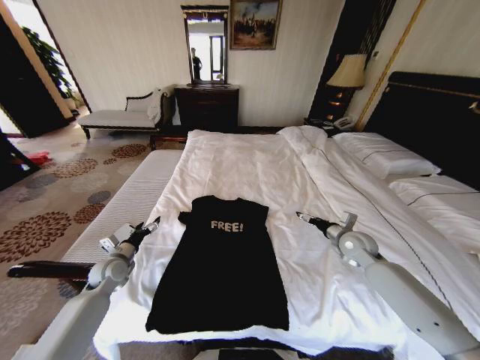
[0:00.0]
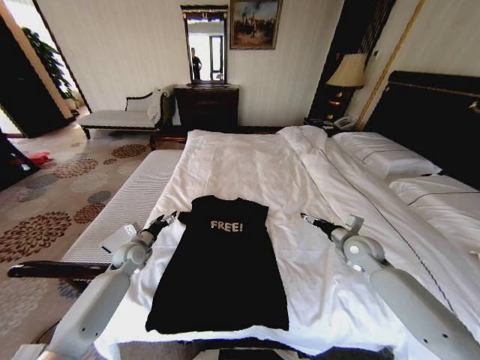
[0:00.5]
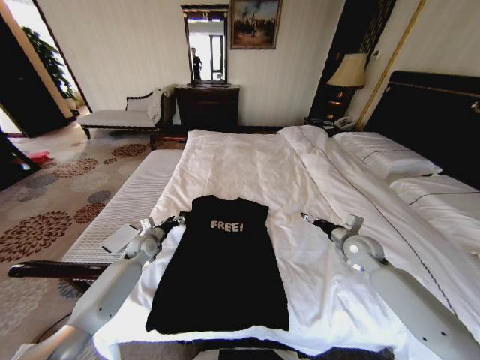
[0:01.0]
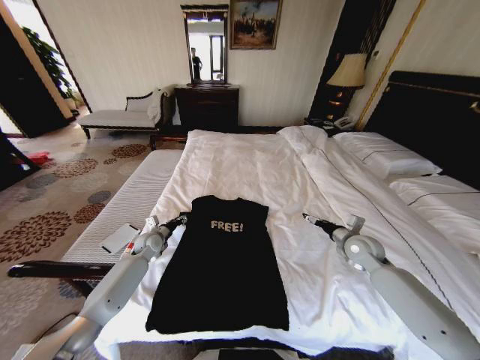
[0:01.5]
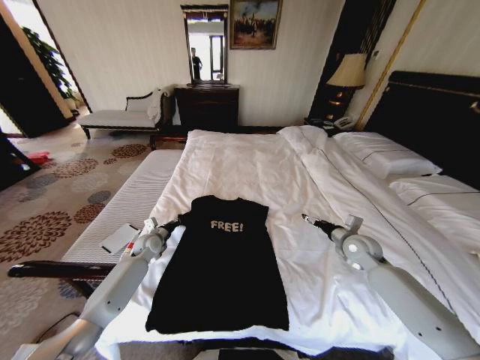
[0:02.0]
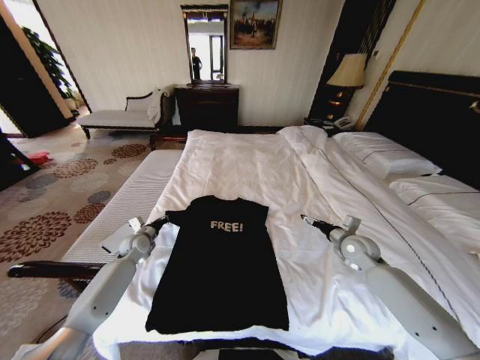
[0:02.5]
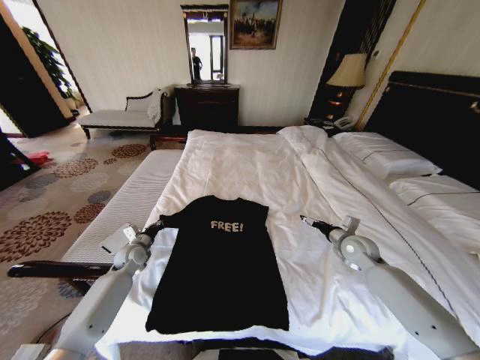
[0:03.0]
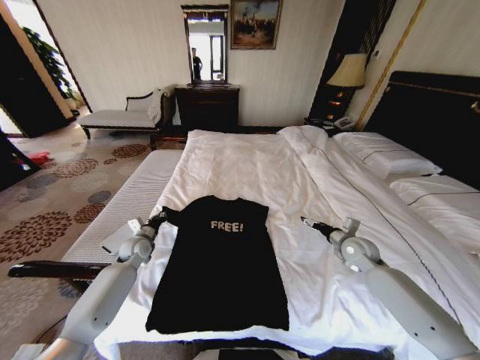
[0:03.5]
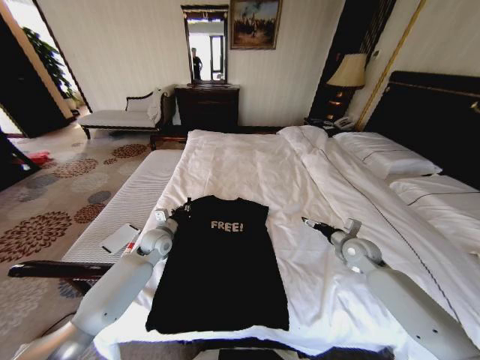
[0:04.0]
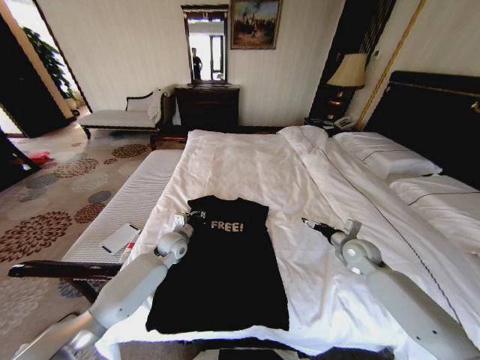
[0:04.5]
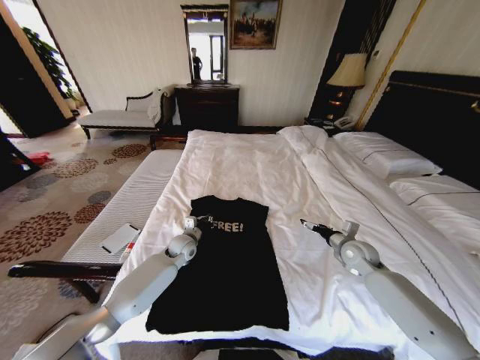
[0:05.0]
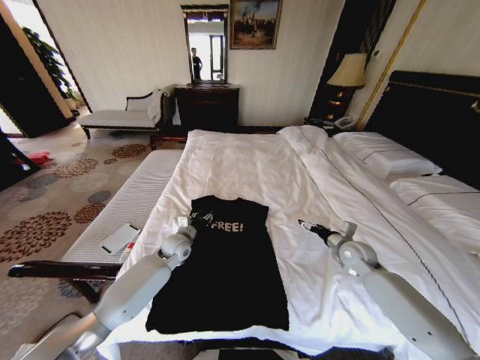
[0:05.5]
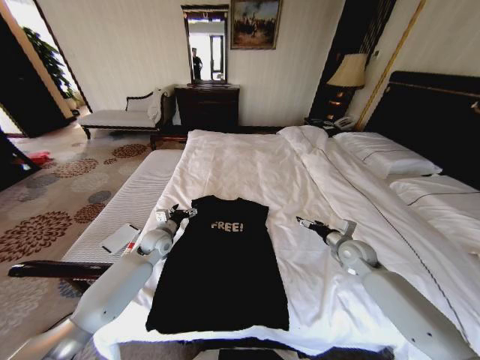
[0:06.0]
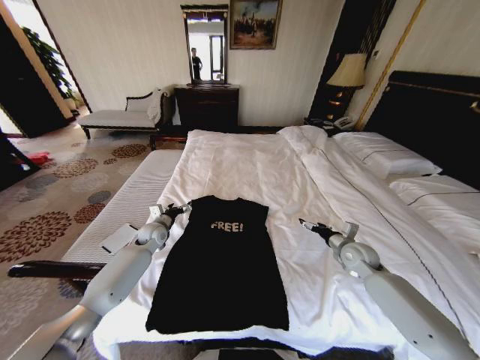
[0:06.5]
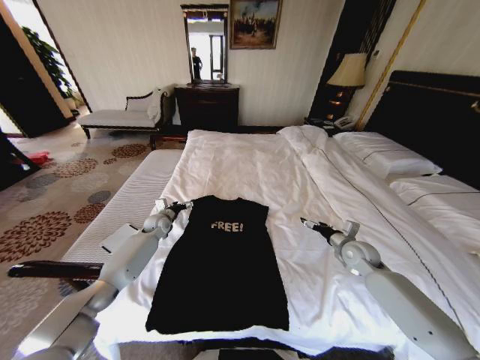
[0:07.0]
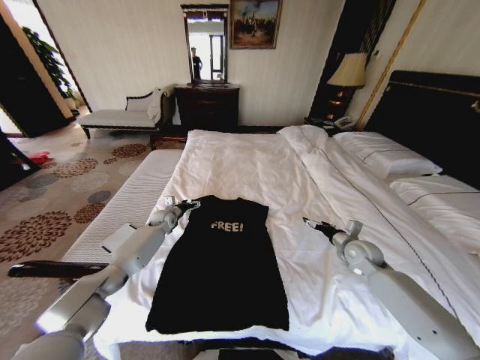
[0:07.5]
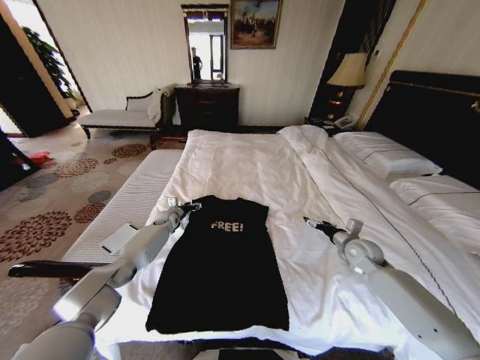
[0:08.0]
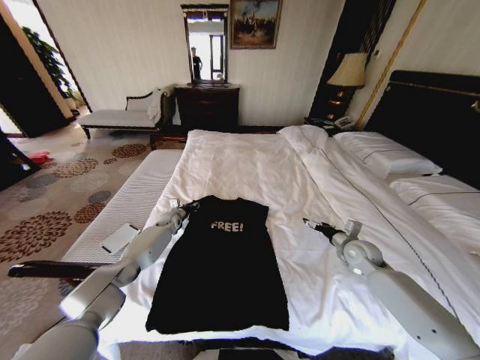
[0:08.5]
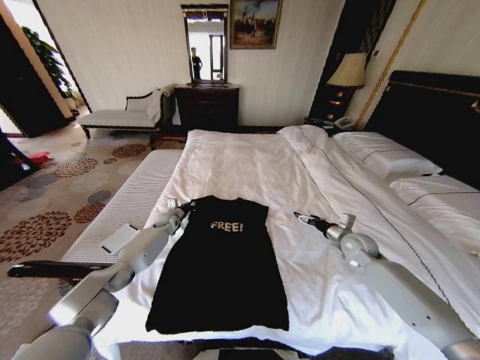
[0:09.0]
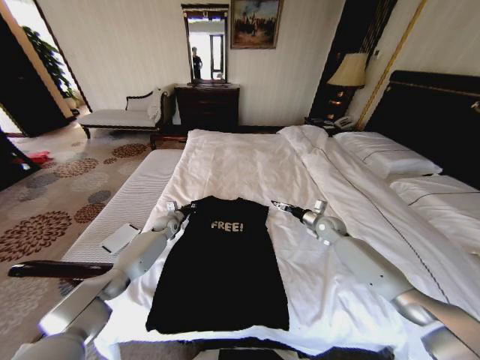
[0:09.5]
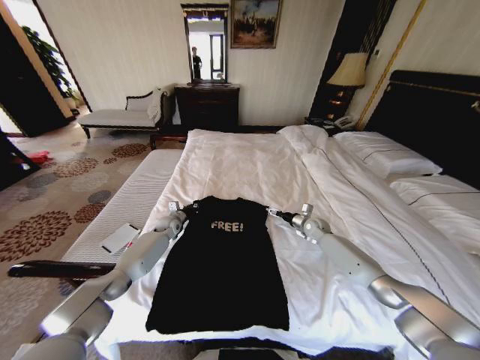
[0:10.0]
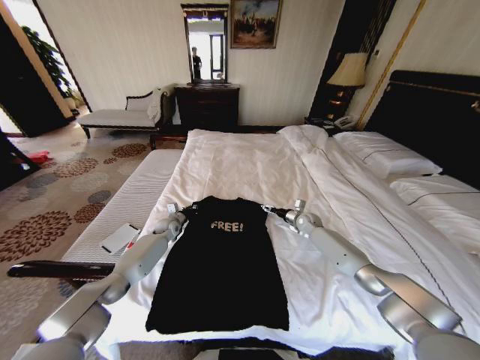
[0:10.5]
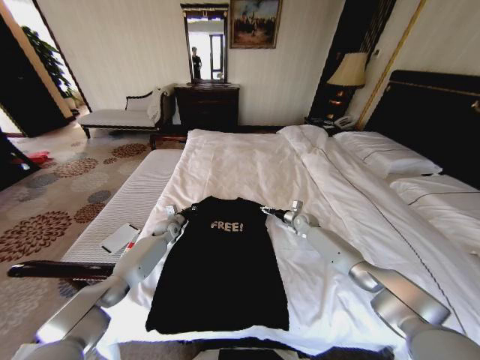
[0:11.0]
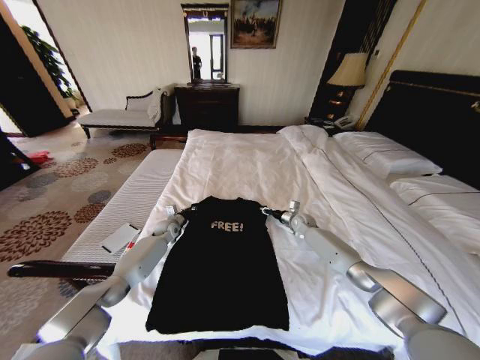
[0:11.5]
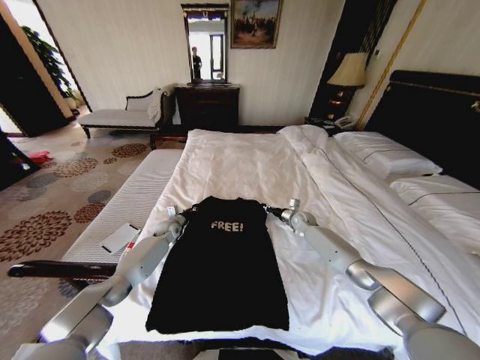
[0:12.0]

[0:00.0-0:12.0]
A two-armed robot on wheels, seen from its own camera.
Task of the whole recording: Fold the clothes on the bed.
0:00.0 to 0:02.0: The left gripper travels forward and to the right by approximately 15 cm, and closes its fingers.
0:02.0 to 0:04.0: The left gripper is displaced upward and to the right by about 10 cm.
0:04.0 to 0:06.0: The left gripper reaches some 10 cm to the right, then returns, and opens up.
0:06.0 to 0:08.0: The left gripper is displaced forward and downward by roughly 15 cm.
0:08.0 to 0:10.0: The left gripper closes up, while the right gripper is displaced forward and to the left by approximately 15 cm.
0:10.0 to 0:12.0: The right gripper ends up roughly 5 cm from where it was, and closes its fingers.

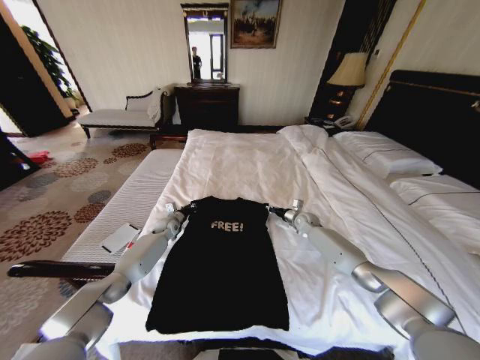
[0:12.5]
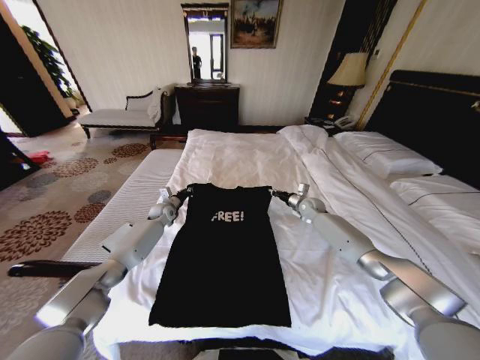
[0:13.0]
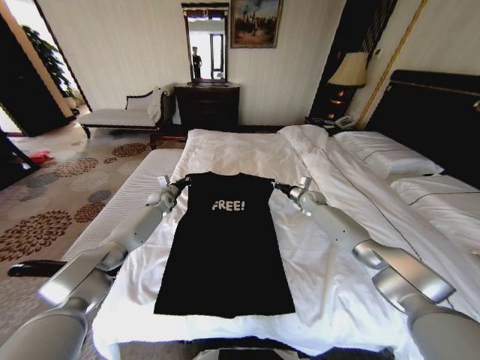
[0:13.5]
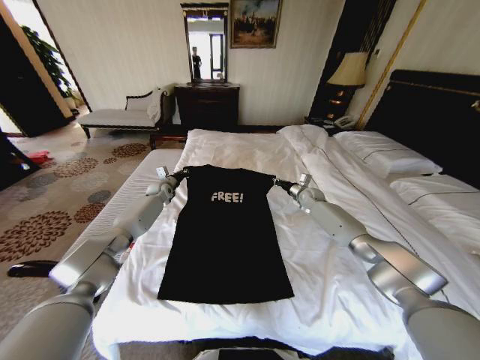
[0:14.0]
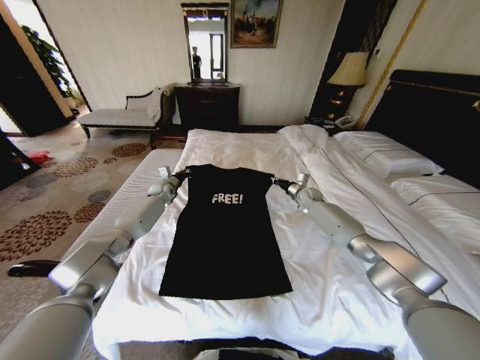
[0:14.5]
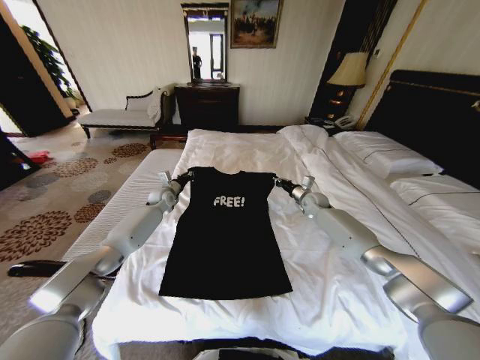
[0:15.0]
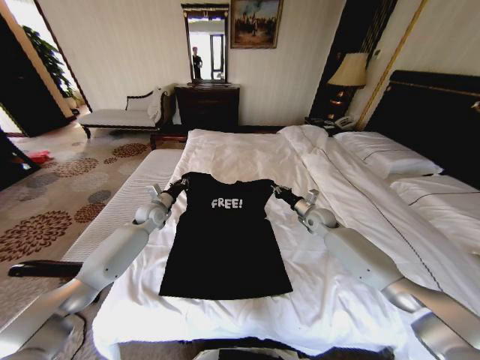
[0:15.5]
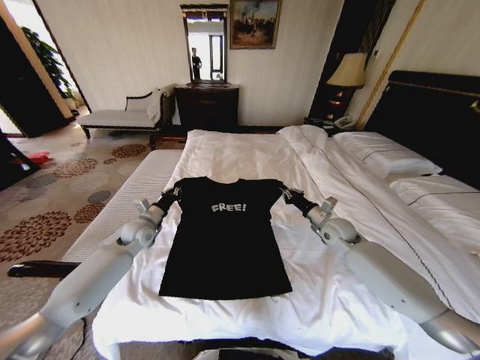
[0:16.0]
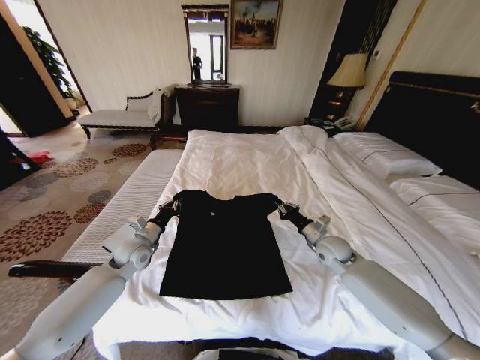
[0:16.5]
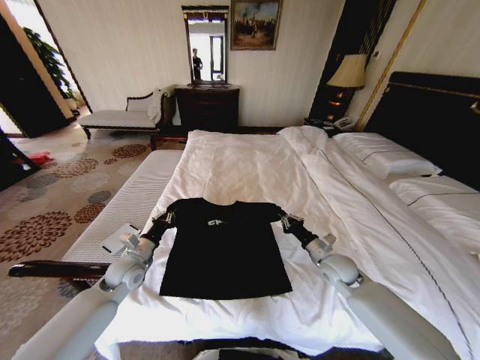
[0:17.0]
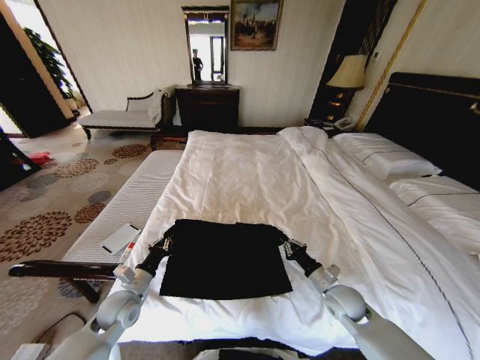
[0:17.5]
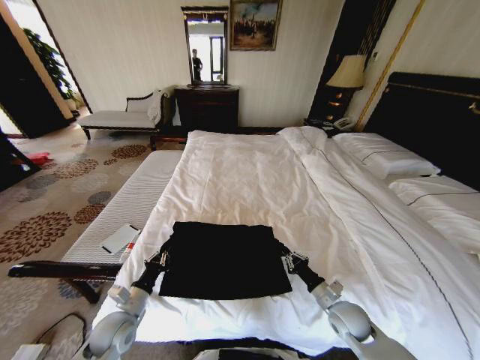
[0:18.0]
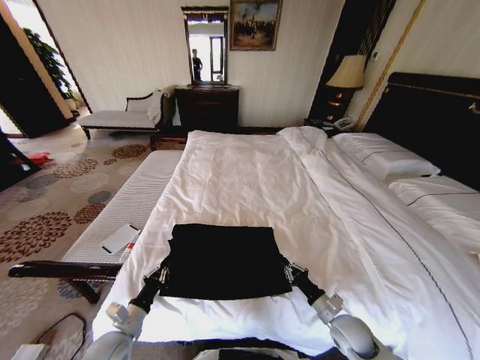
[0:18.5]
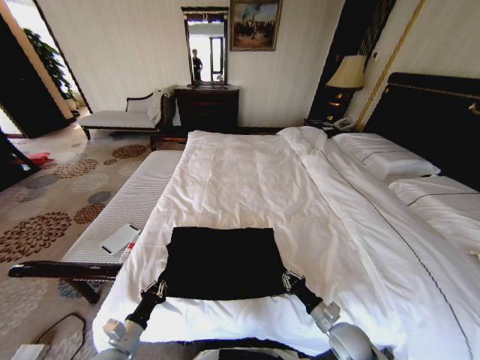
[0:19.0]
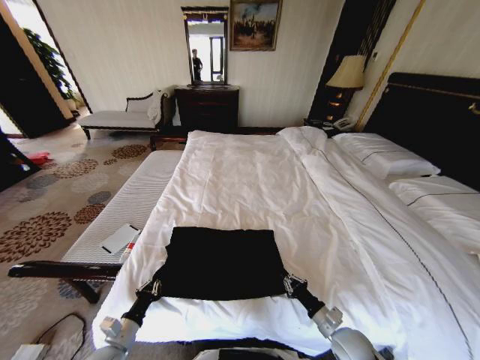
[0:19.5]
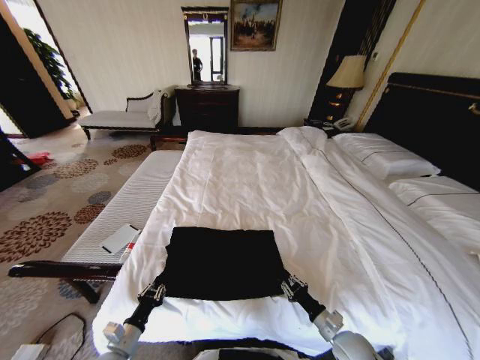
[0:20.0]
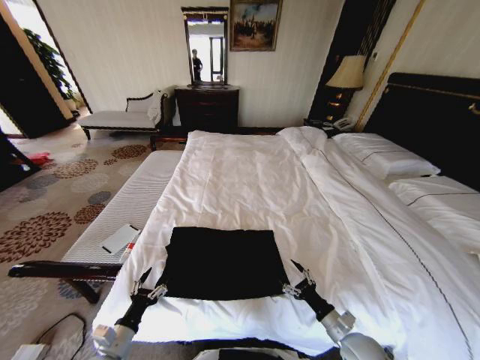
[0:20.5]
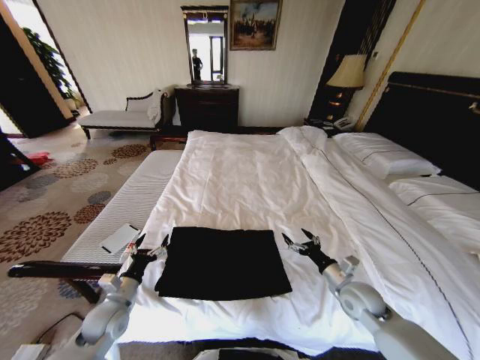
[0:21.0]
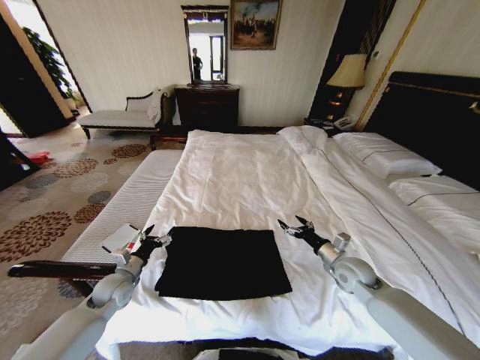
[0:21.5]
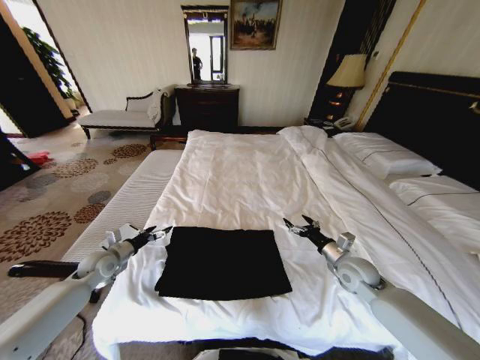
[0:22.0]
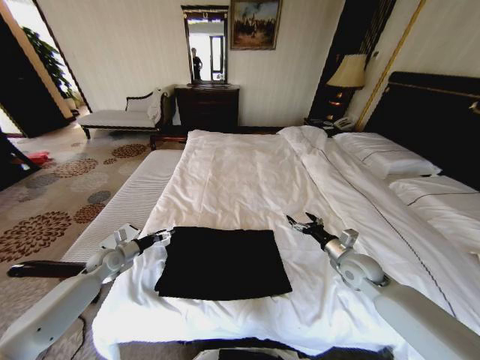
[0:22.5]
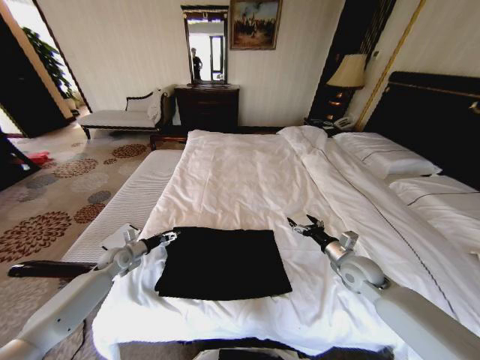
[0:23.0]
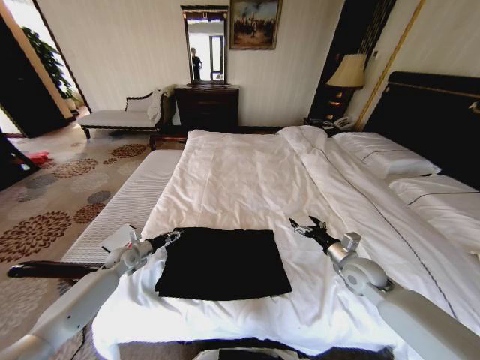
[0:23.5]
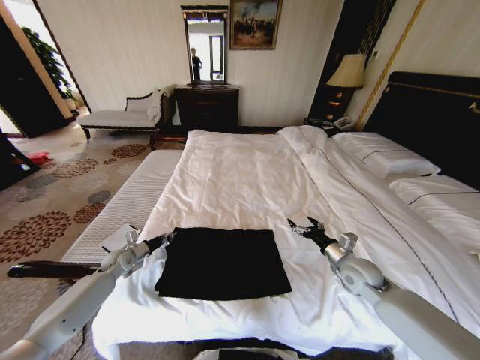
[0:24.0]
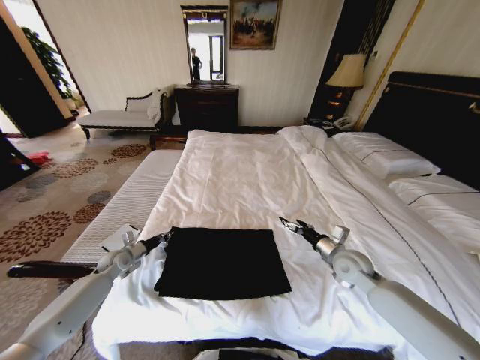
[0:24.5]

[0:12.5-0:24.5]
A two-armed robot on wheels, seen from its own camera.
Task of the whole recording: Fold the clothes on the bed.
0:12.5 to 0:14.5: The grippers both shift upward and forward by roughly 15 cm.
0:14.5 to 0:16.5: Both grippers travel together backward, roughly 25 cm.
0:16.5 to 0:18.5: The grippers both shift backward and downward by about 25 cm.
0:18.5 to 0:20.5: The left gripper travels backward by about 5 cm, and opens its fingers, while the right gripper opens its fingers.
0:20.5 to 0:22.5: The left gripper goes some 25 cm forward. Meanwhile the right gripper is displaced forward and upward by about 20 cm.
0:22.5 to 0:24.5: The left gripper closes its fingers.

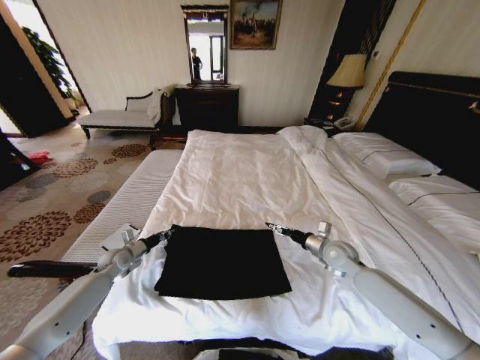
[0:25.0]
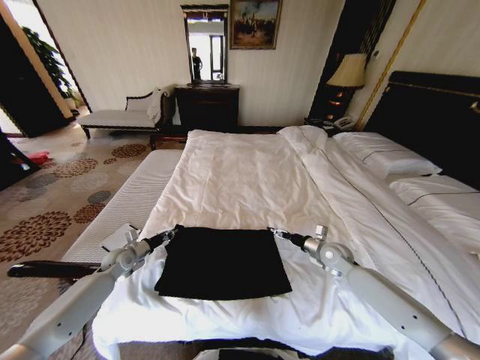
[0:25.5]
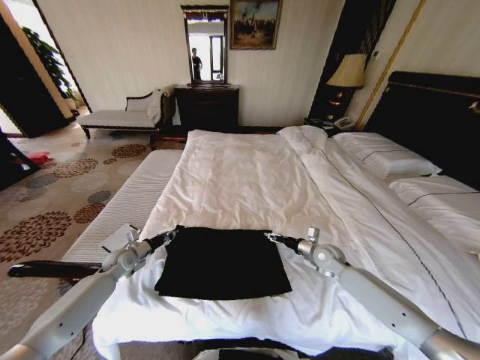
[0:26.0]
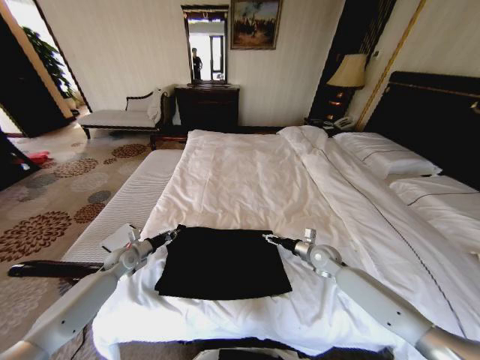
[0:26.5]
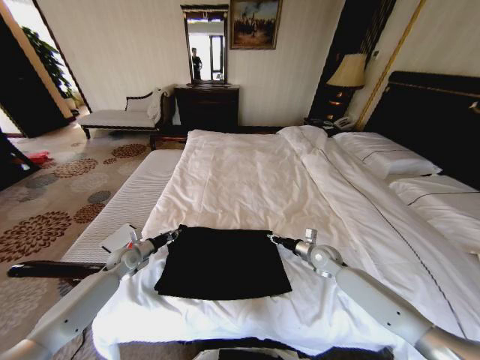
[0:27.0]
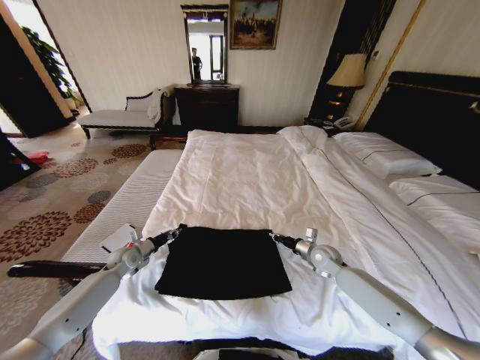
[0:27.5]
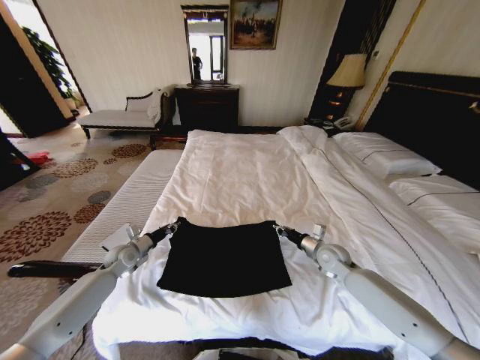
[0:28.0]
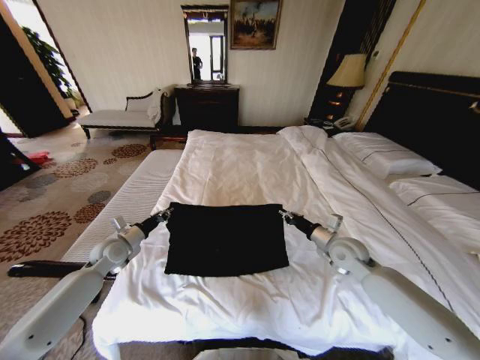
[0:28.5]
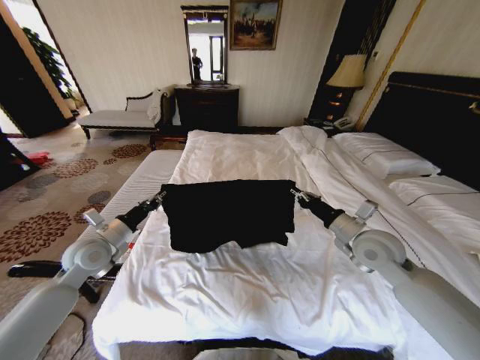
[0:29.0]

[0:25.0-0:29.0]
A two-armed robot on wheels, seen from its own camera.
Task of the whole recording: Fold the clothes on the bed.
0:25.0 to 0:27.0: The right gripper travels downward by some 5 cm, and closes.
0:27.0 to 0:29.0: The left gripper is displaced upward and backward by some 20 cm, while the right gripper is displaced upward by some 20 cm.
